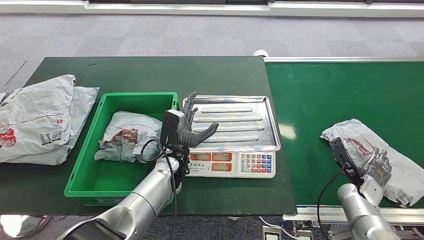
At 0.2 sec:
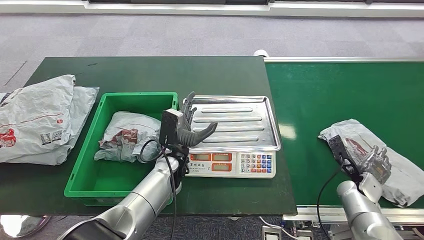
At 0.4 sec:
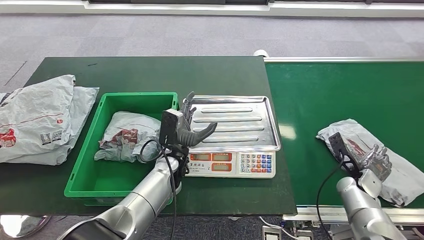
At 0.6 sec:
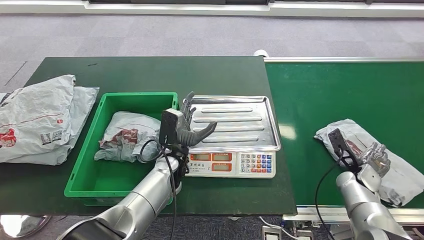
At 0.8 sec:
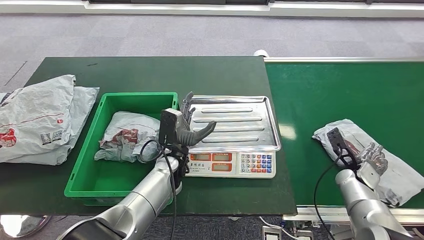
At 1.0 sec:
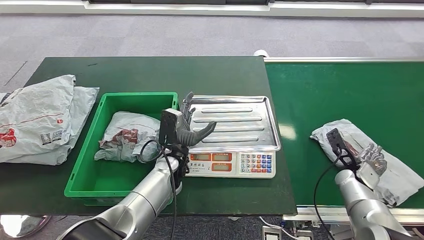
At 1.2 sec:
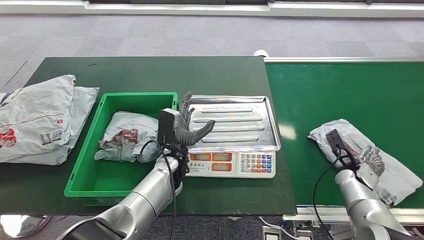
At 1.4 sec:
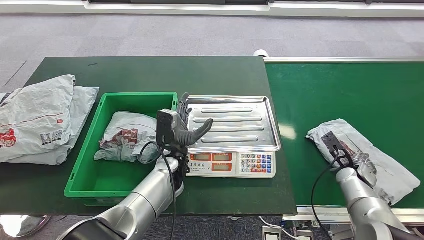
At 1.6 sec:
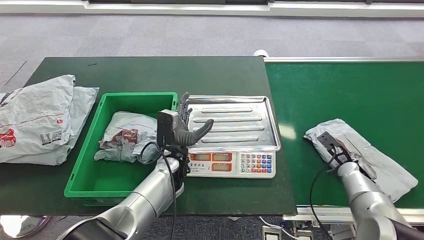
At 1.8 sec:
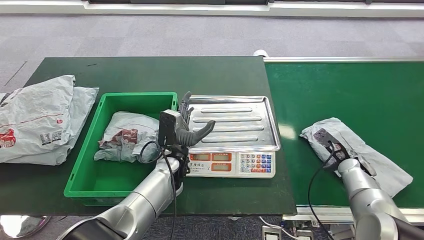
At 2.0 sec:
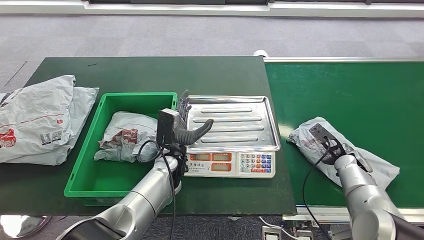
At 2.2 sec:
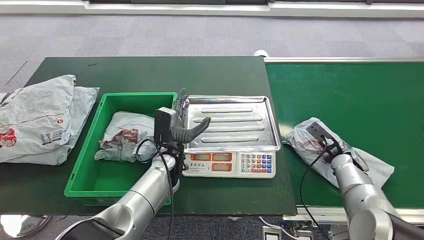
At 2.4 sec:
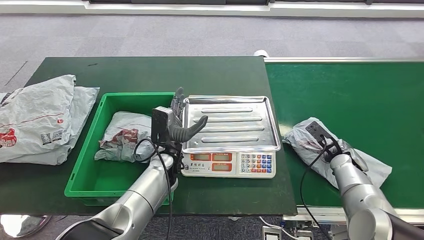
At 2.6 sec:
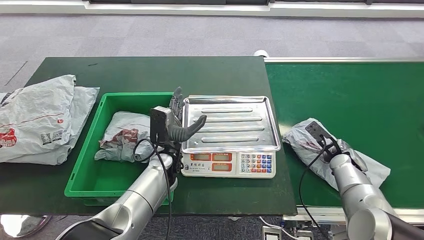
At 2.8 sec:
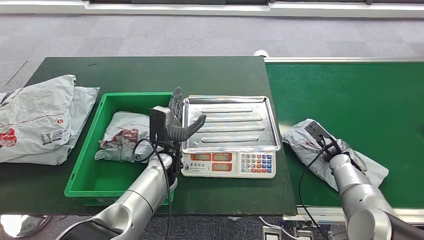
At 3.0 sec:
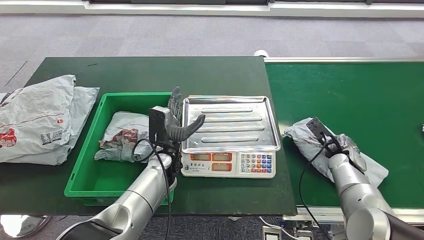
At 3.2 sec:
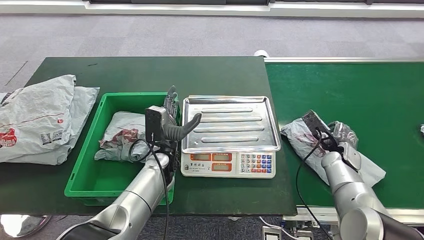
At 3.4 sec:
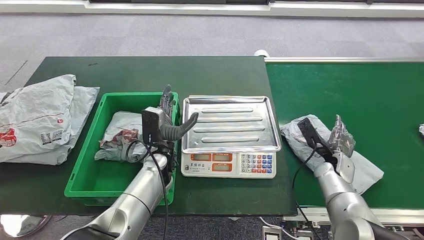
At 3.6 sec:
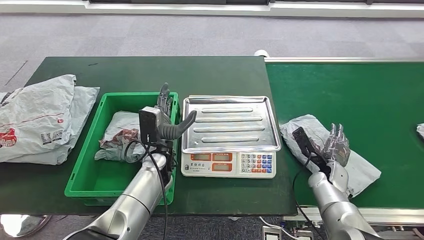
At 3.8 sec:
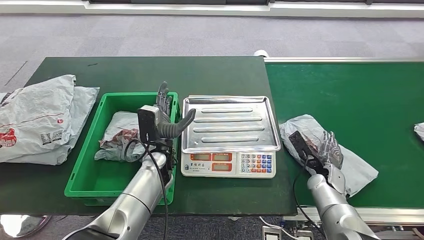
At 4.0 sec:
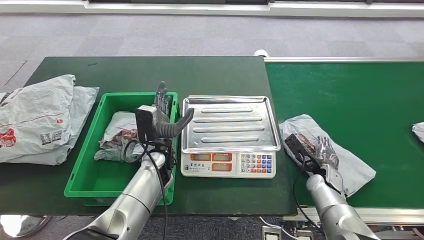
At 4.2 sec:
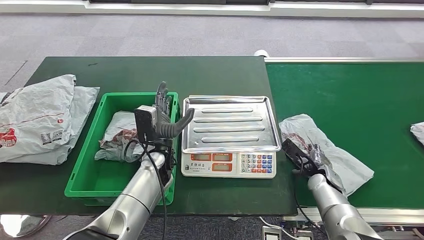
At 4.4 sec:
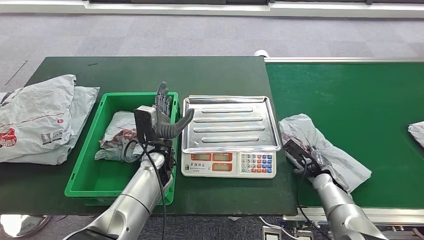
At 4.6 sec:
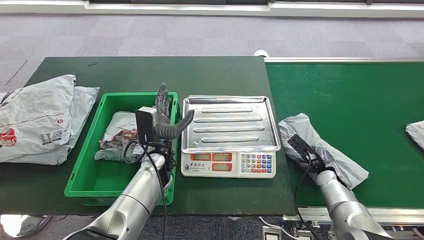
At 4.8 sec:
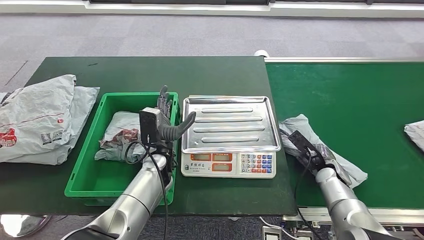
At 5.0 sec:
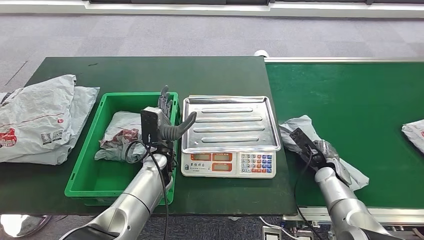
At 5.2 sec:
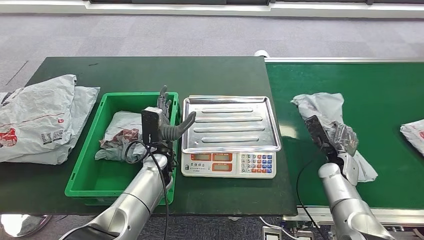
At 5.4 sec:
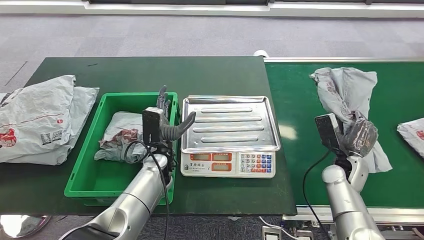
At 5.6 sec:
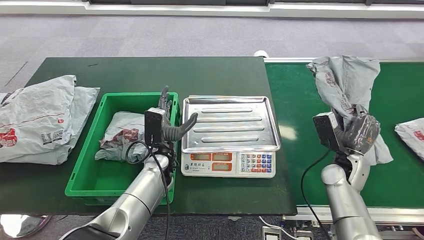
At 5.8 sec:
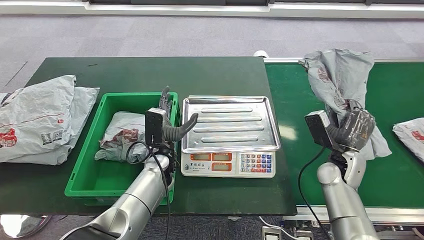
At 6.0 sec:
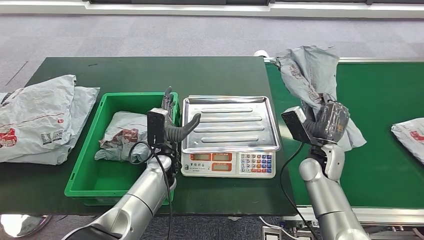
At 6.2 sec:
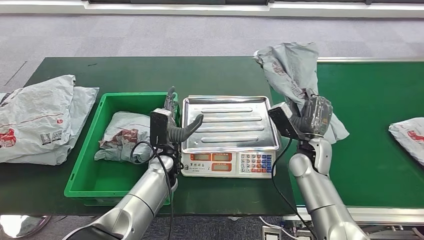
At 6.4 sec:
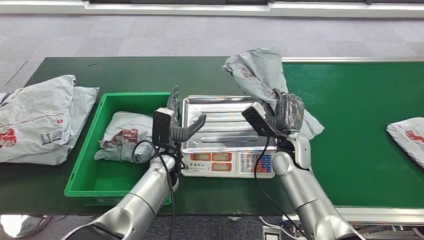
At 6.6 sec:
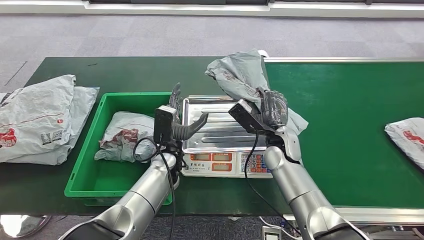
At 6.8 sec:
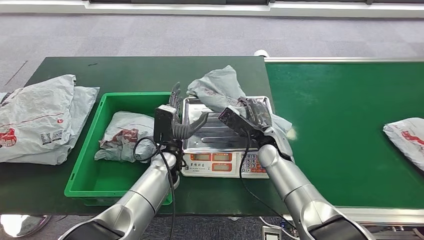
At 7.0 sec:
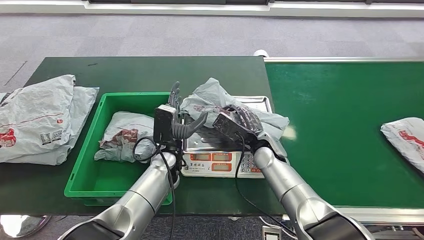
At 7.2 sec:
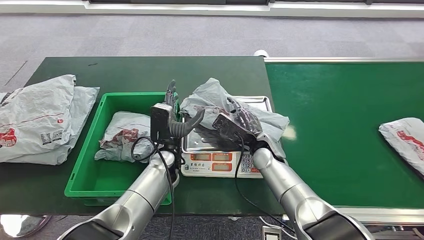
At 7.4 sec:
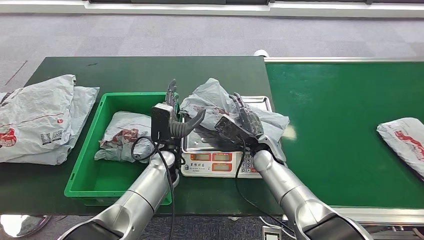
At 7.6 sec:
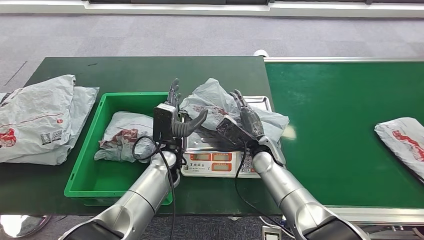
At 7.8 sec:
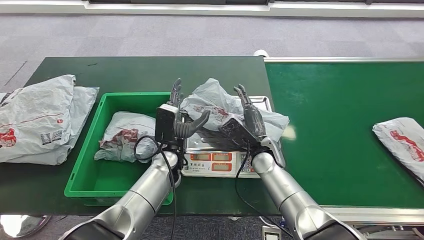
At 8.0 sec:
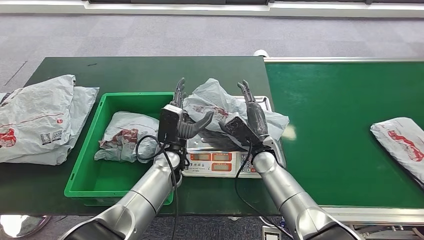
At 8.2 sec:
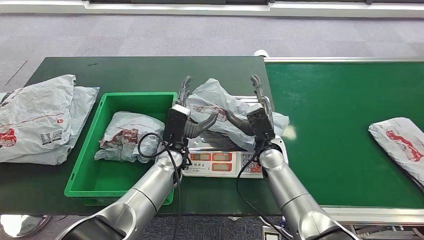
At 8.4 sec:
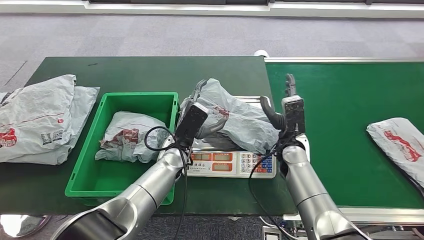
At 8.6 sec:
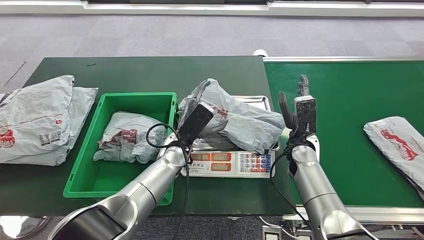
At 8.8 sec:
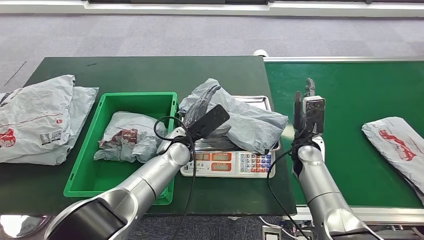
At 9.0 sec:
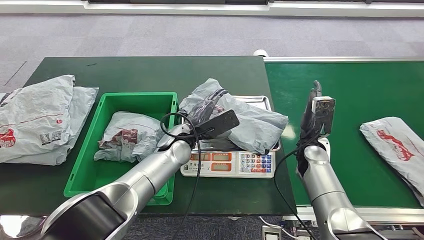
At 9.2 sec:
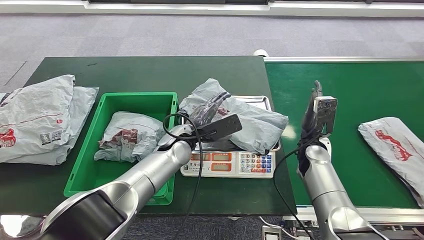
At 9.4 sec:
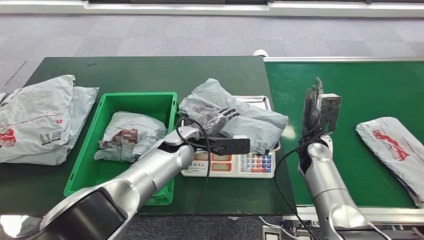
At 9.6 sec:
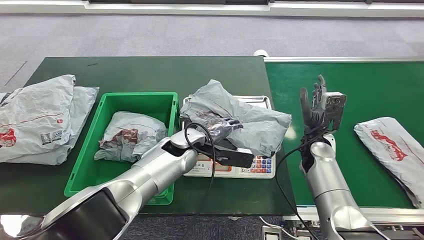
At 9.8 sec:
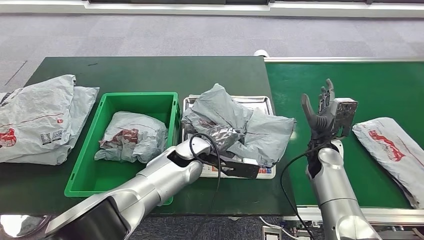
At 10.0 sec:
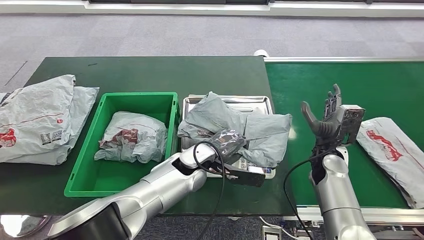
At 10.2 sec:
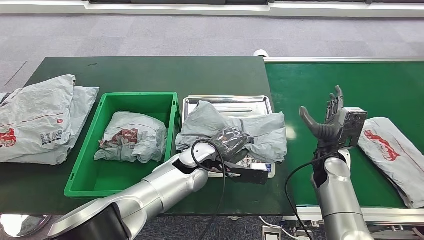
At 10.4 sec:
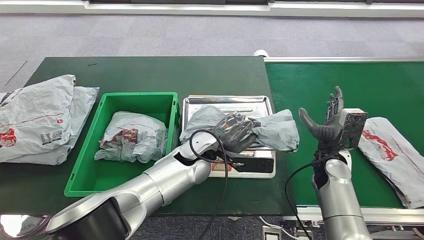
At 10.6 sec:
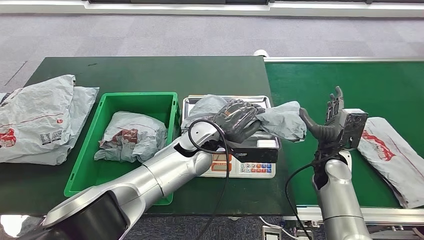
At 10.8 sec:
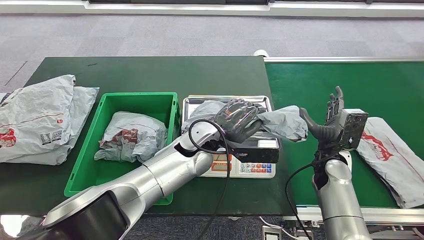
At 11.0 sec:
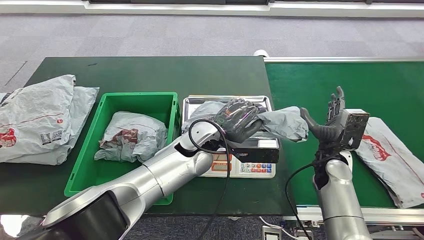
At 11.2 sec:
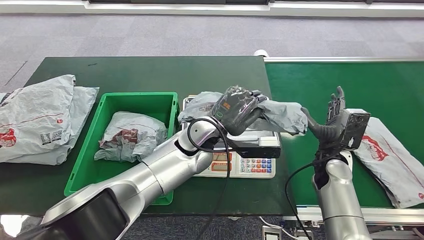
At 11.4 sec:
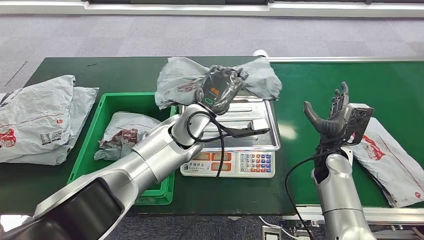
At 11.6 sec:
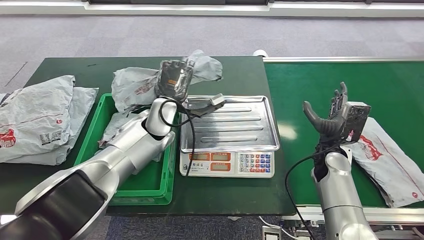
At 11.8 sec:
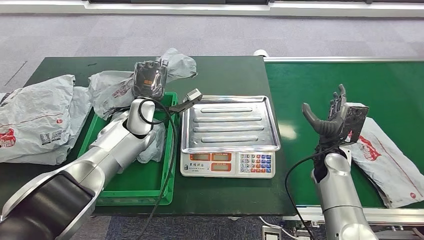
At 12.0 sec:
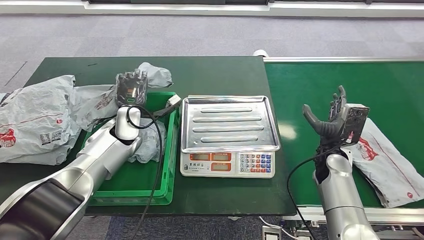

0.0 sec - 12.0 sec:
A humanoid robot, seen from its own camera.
Step, 3.8 sec - 6.2 sec: Pick up the parcel from the conveyor belt.
Step, 6.4 sec - 8.6 sec: Place the parcel onto the inbound machine.
Step, 9.4 sec - 11.6 sec: Pick up the parcel from the inbound machine.
0.0 sec - 1.6 sec: The right hand changes place by some 5 cm.
1.6 sec - 3.0 sec: There are only small adjustments of the hands.
3.0 sec - 4.4 sec: The right hand shifts approximately 5 cm downward.
4.4 sec - 6.0 sec: The right hand shifts some 10 cm upward and to the left.

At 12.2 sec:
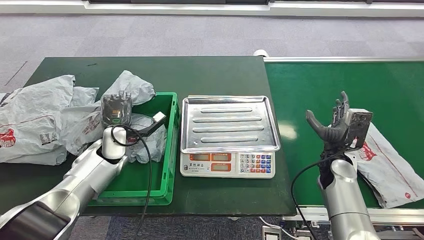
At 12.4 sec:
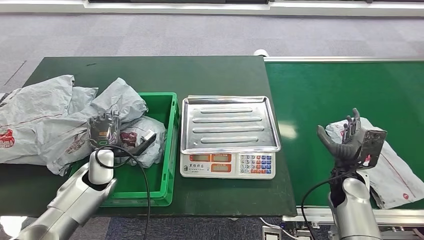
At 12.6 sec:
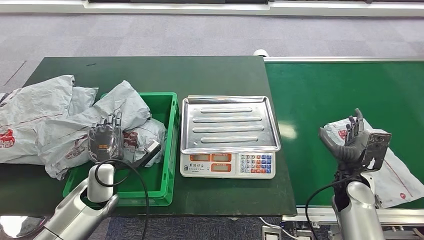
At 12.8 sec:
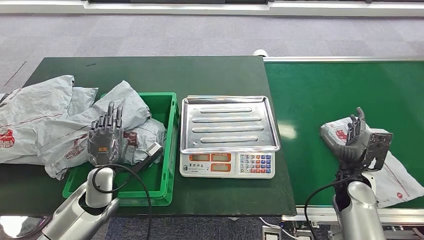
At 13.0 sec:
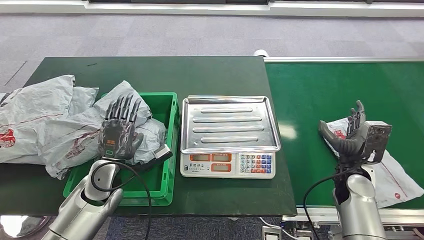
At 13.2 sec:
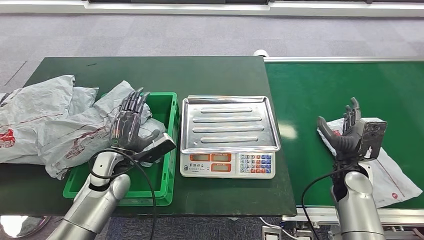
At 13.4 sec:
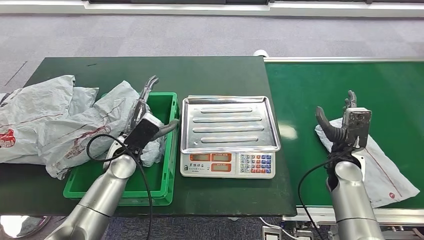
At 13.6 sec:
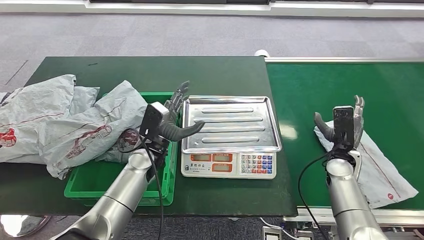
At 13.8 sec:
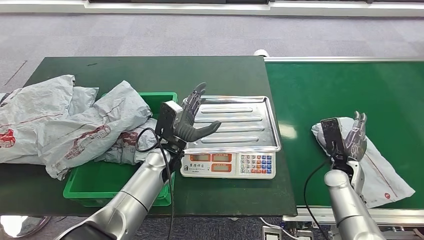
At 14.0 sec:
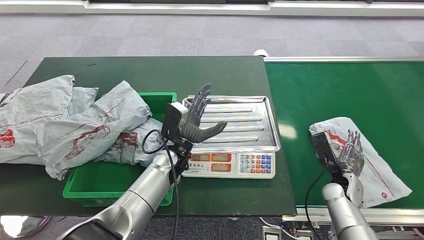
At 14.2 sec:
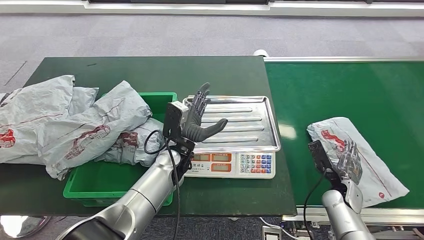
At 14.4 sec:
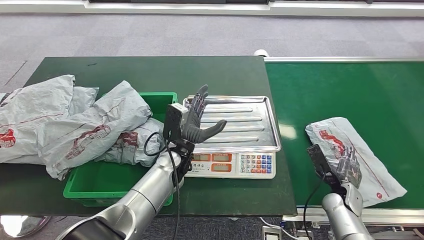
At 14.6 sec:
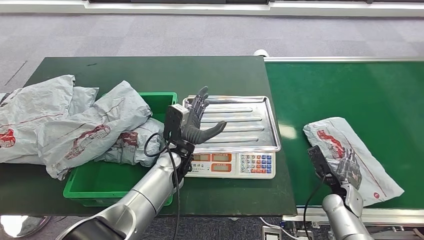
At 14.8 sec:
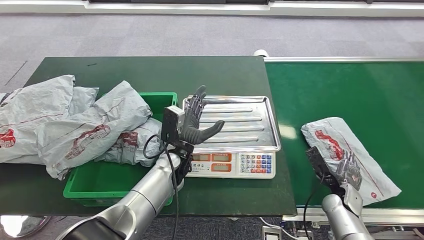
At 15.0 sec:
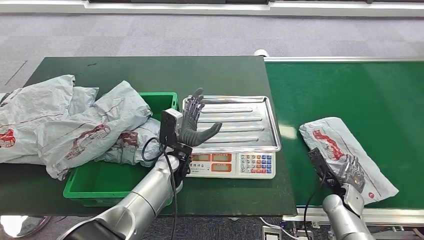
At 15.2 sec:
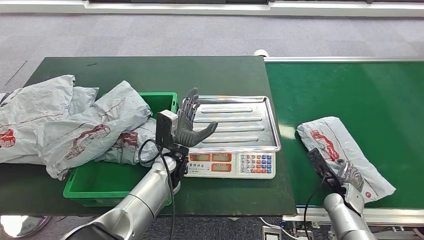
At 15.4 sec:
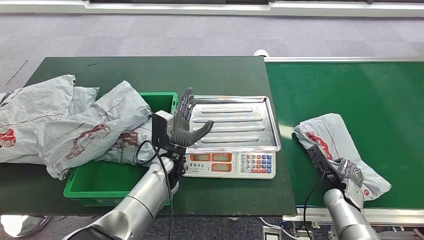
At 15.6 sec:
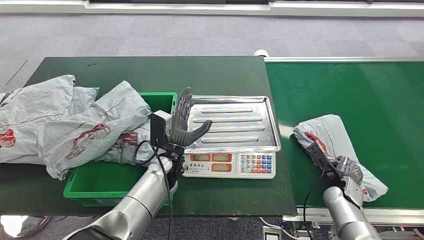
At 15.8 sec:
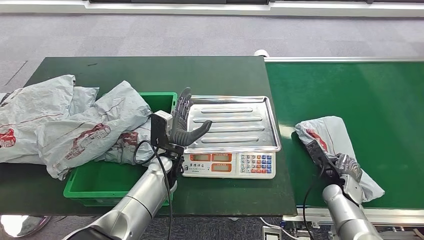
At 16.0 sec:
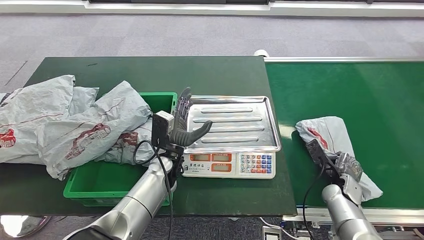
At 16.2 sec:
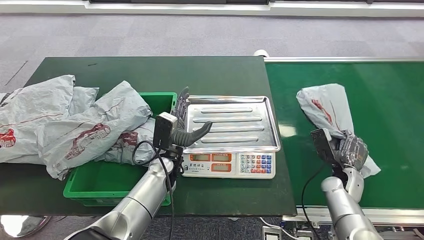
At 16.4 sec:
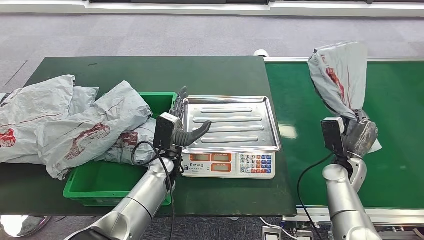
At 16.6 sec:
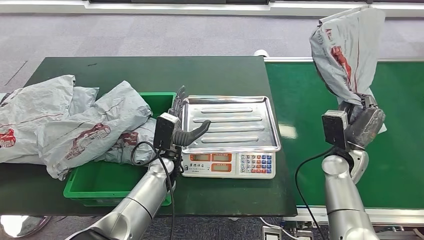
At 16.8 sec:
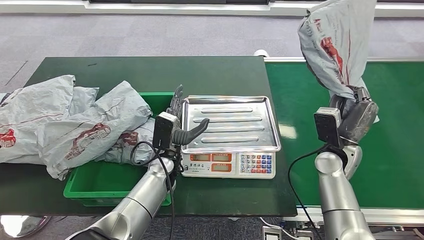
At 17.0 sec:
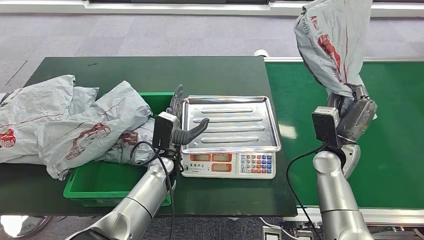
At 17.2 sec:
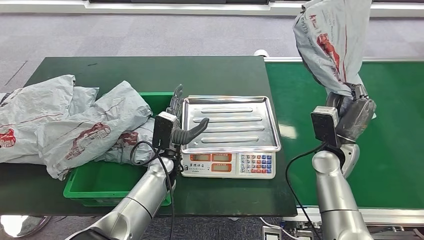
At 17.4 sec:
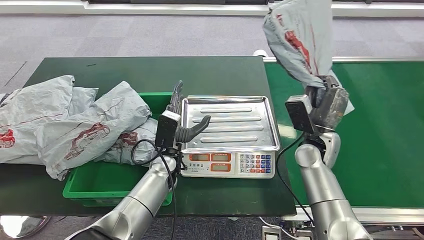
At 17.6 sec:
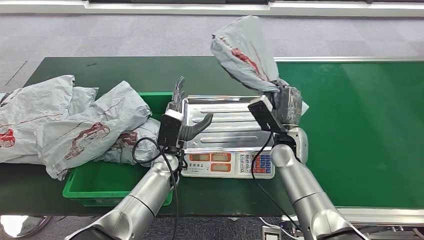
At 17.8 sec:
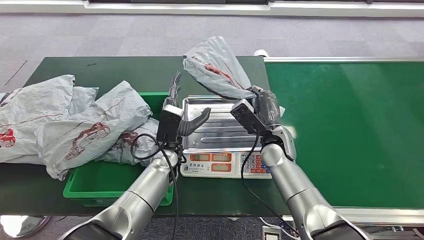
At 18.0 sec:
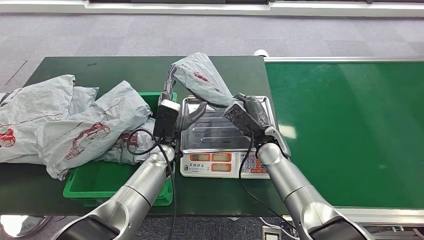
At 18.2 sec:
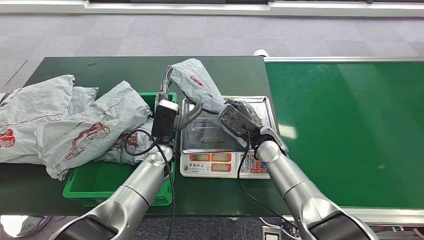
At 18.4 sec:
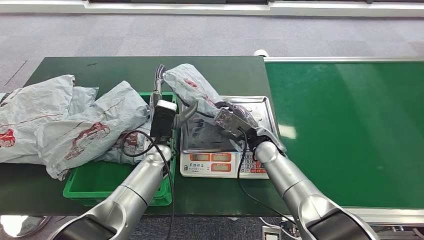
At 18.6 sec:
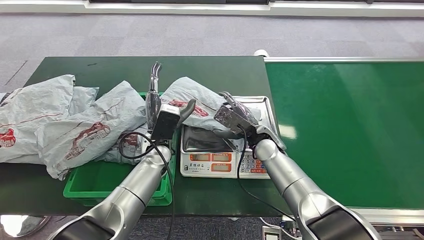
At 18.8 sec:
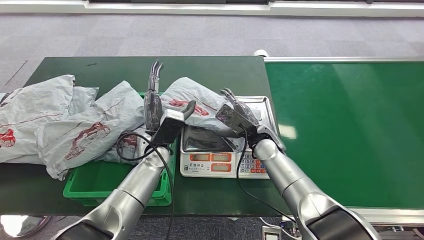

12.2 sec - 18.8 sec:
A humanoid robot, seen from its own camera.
Step, 12.2 sec - 14.2 sec: Place the parcel into the delivery box.
Step, 14.4 sec - 16.8 sec: Pick up the parcel from the conveyor belt.
13.8 sec - 15.4 sec: The right hand goes approximately 5 cm downward.
15.4 sec - 17.2 sec: The right hand travels upward, to the left and forward by roughly 15 cm.
